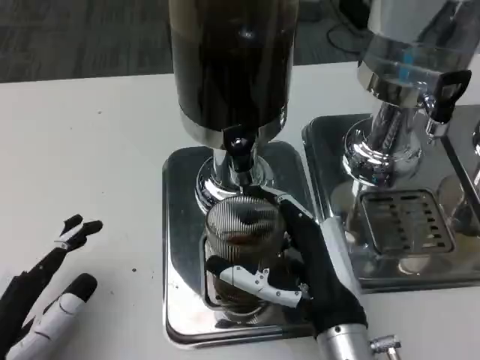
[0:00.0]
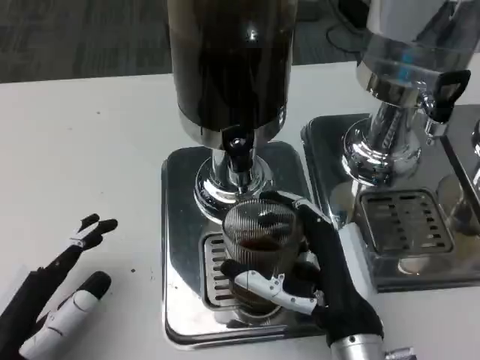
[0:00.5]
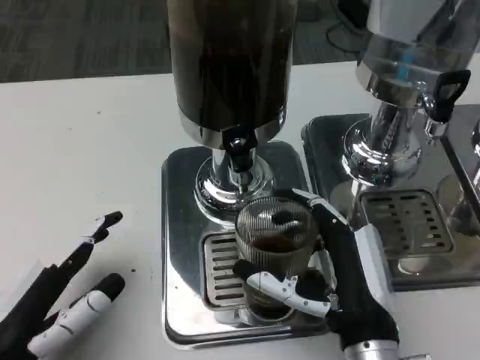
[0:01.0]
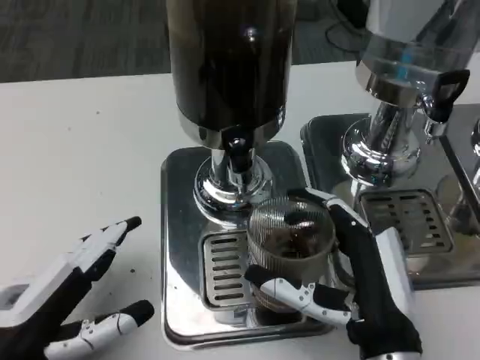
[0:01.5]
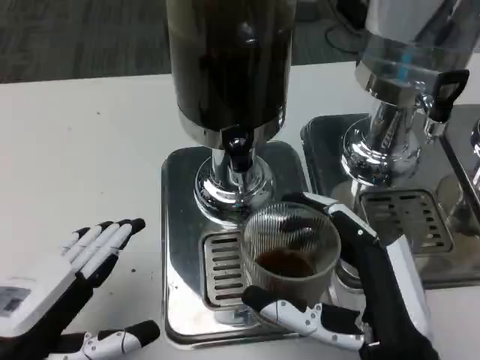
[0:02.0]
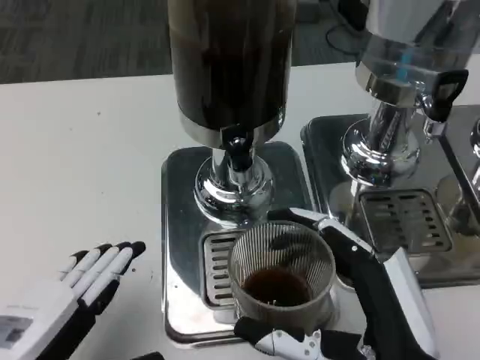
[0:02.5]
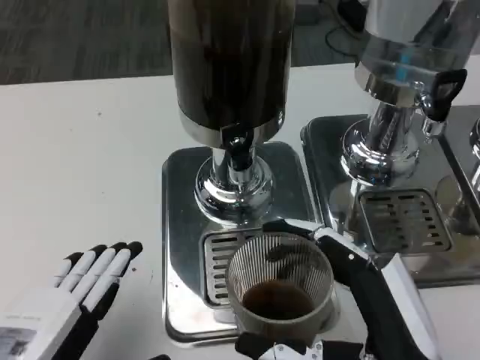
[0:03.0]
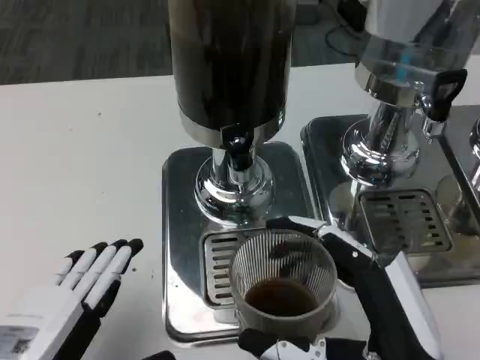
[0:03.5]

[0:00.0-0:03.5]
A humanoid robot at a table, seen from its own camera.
Task of the whole recording: Grasp the cup under the faucet to collect the drink, then remove the cup.
0:00.0 to 0:02.0: The right hand heads backward, covering about 5 cm.

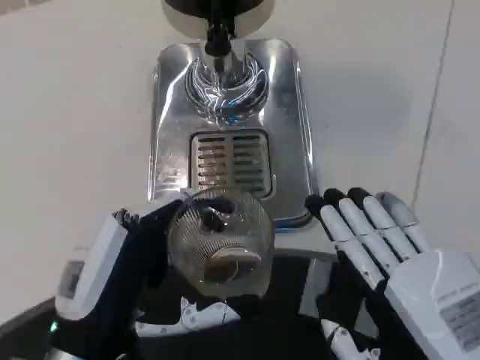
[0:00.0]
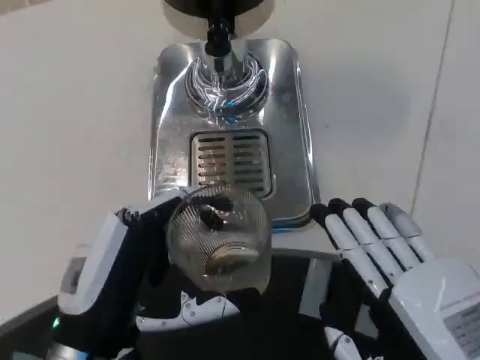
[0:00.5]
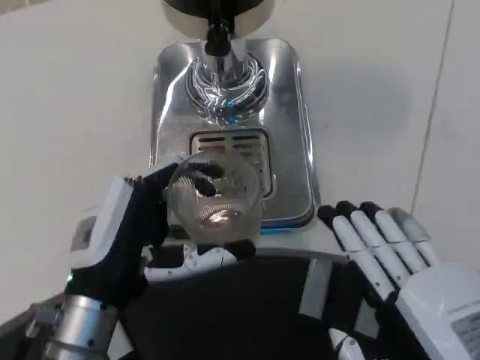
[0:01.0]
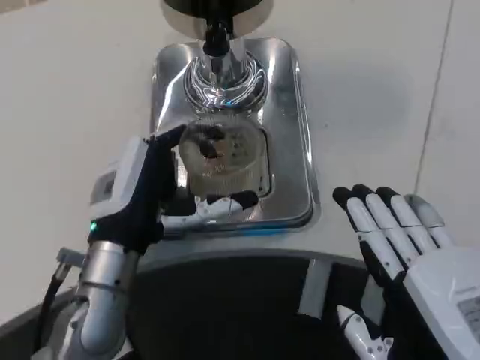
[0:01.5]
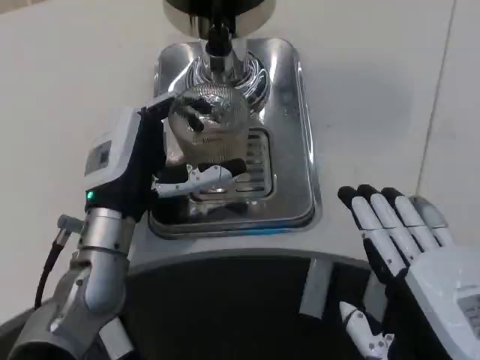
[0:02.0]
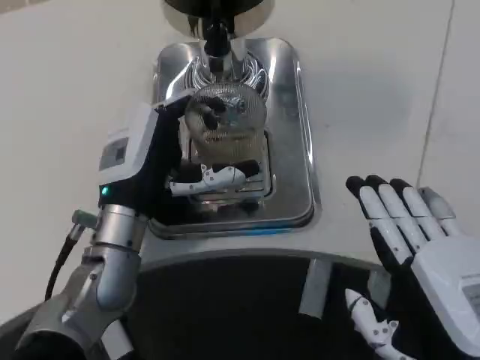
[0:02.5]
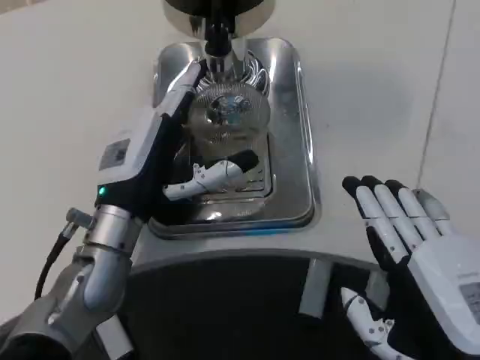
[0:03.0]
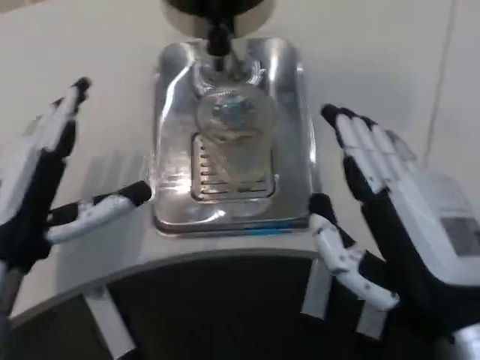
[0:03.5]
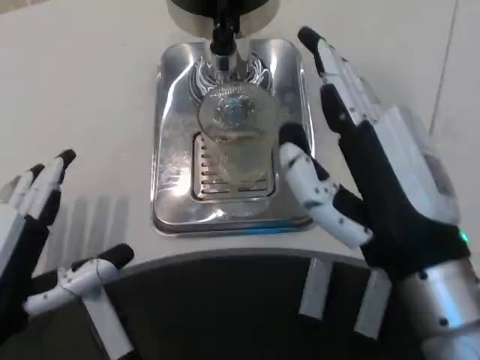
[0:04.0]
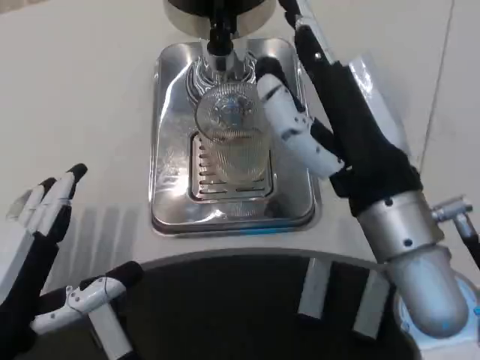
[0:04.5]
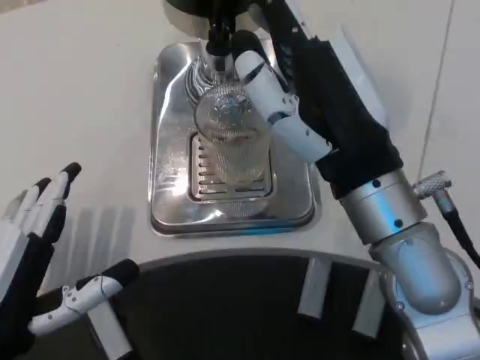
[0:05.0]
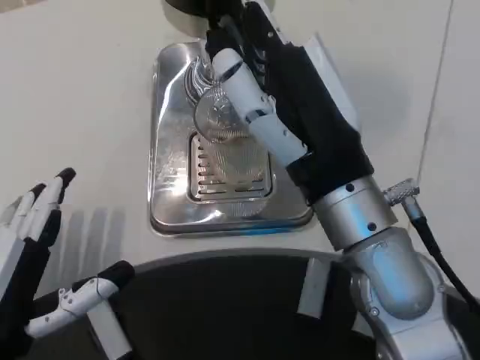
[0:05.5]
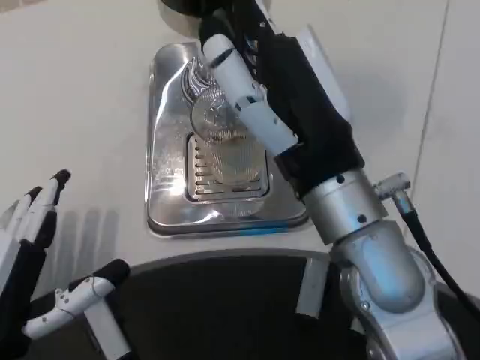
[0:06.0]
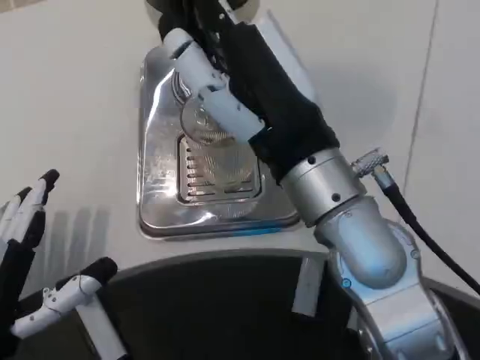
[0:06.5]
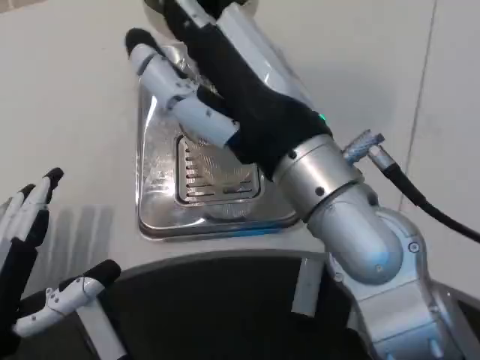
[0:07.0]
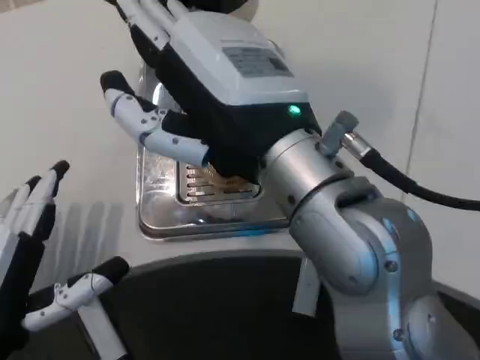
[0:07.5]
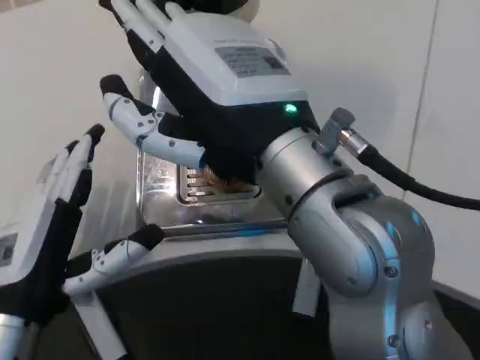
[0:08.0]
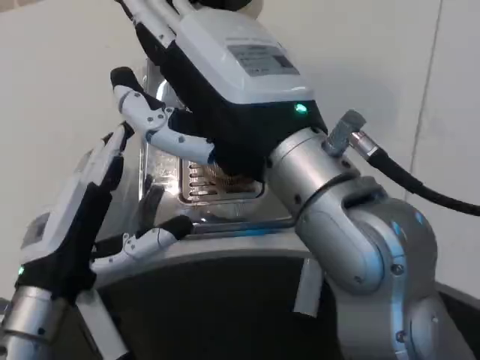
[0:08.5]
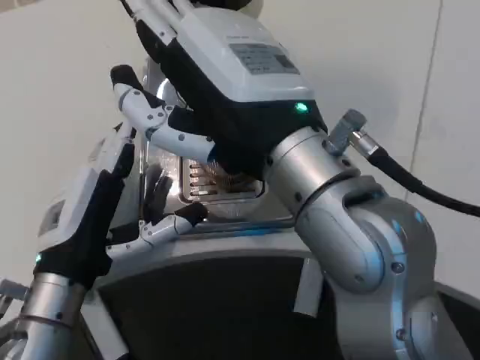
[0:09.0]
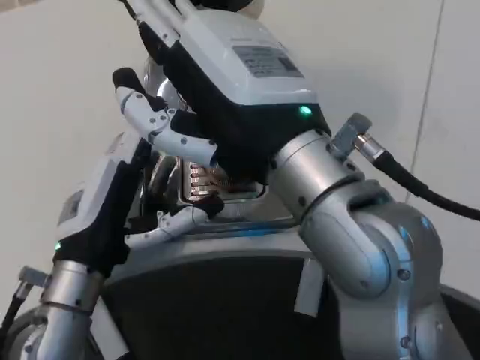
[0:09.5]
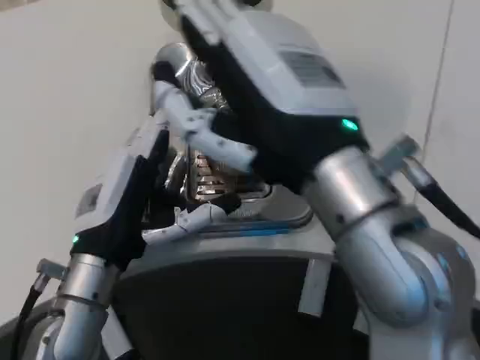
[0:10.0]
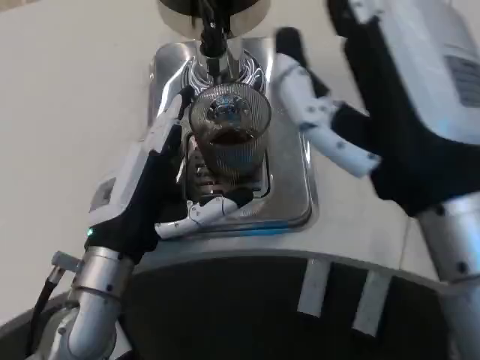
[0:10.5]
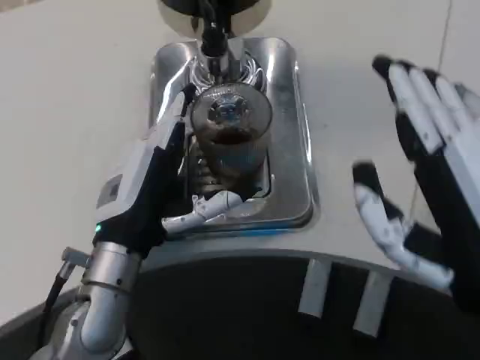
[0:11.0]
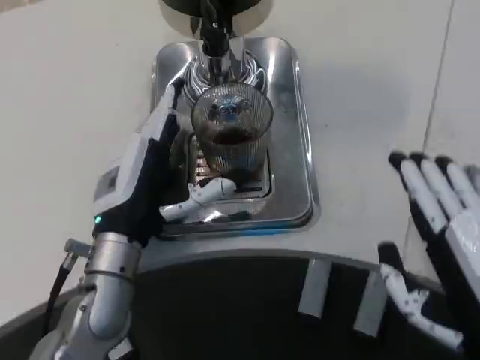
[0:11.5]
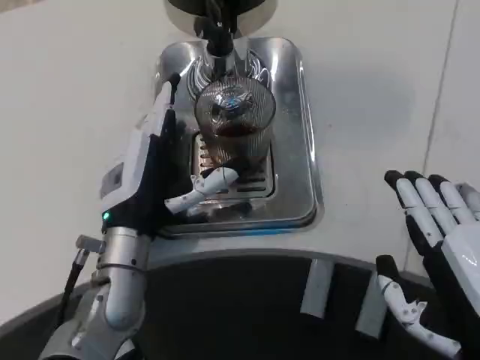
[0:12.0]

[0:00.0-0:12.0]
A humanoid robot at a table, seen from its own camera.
Task of the whole recording: Grasp the cup under the faucet to collect the drink, then remove the cup.
0:00.0 to 0:02.0: The left hand shifts about 15 cm forward.
0:02.0 to 0:04.0: The left hand shifts roughly 15 cm backward and to the left; the right hand heads forward, upward and to the left, covering approximately 10 cm.
0:04.0 to 0:06.0: The right hand heads forward and to the left, covering roughly 10 cm.
0:06.0 to 0:08.0: The right hand travels upward by about 5 cm.
0:08.0 to 0:10.0: The left hand travels forward by some 5 cm.
0:10.0 to 0:12.0: The right hand travels to the right, downward and backward by about 20 cm; the left hand changes place by about 5 cm.

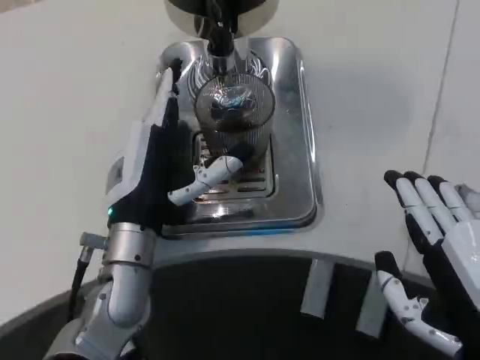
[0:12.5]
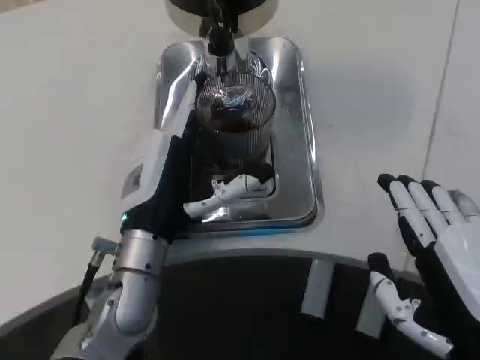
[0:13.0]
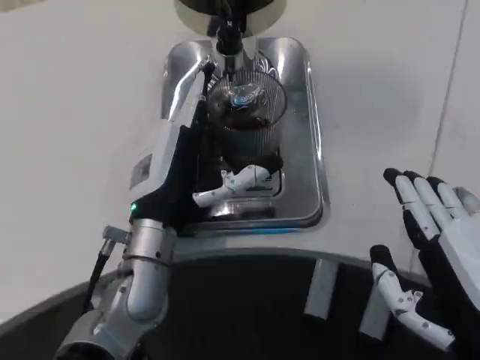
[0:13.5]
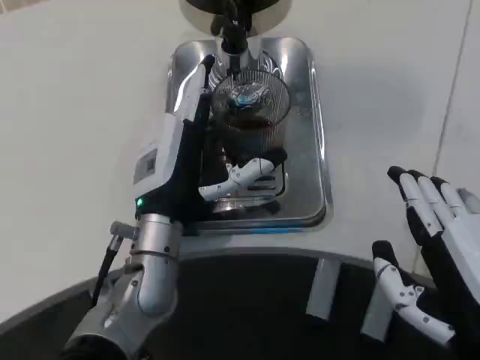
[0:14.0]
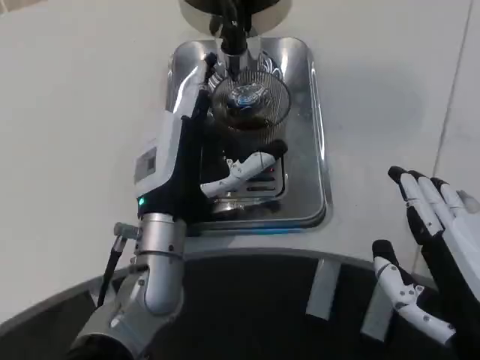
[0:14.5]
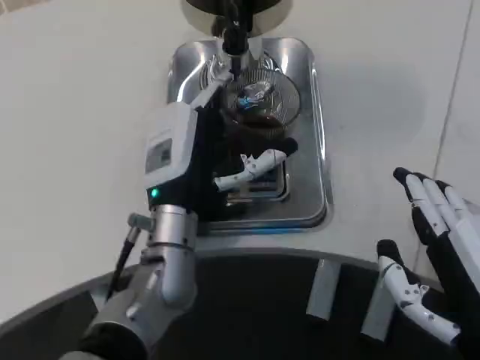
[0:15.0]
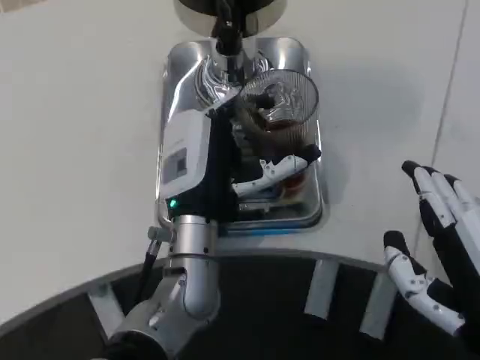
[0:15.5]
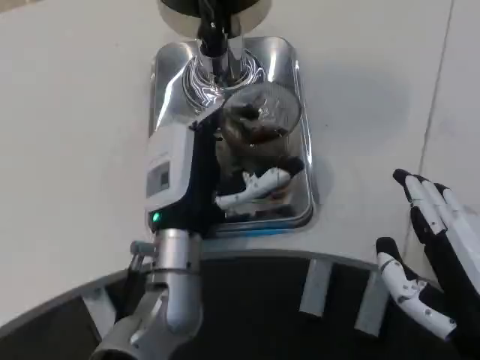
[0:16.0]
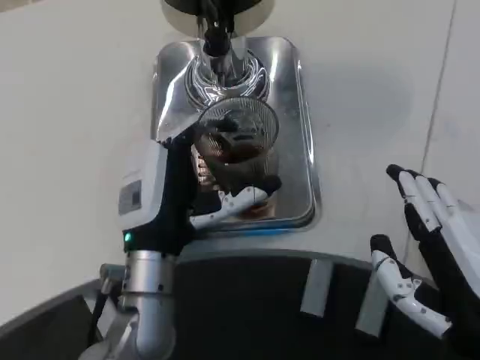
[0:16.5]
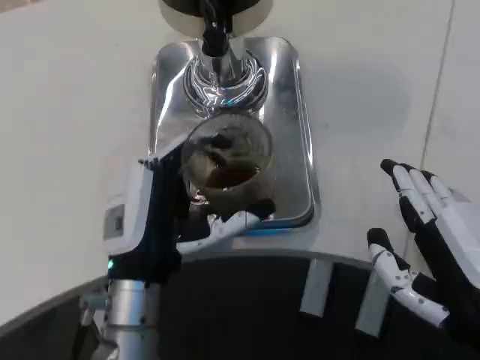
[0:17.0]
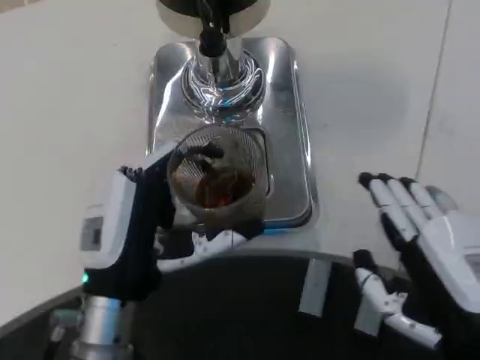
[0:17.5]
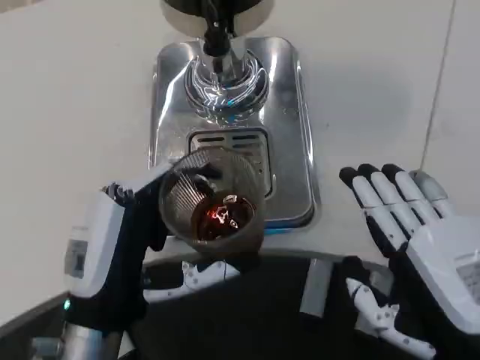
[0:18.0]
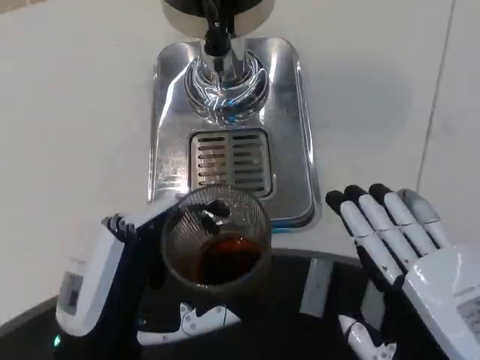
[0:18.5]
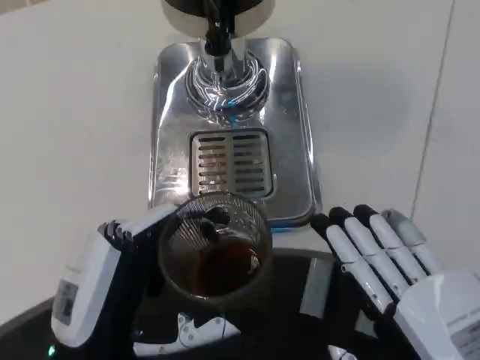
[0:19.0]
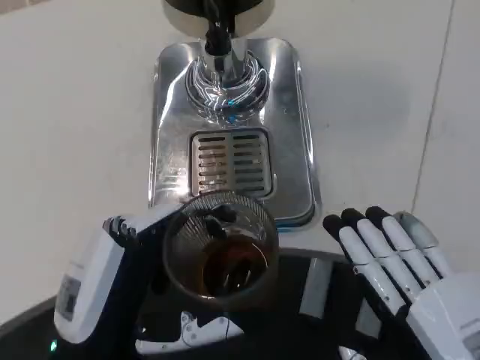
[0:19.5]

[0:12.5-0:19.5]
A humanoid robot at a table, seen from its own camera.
Task of the whole recording: Grasp the cup under the faucet to collect the drink, then remove the cup.
0:16.0 to 0:17.5: The left hand is displaced backward and to the left by some 10 cm.
0:17.5 to 0:19.5: The right hand changes place by roughly 5 cm. The left hand shifts some 5 cm backward.

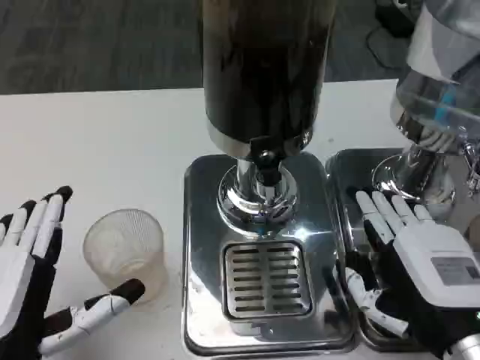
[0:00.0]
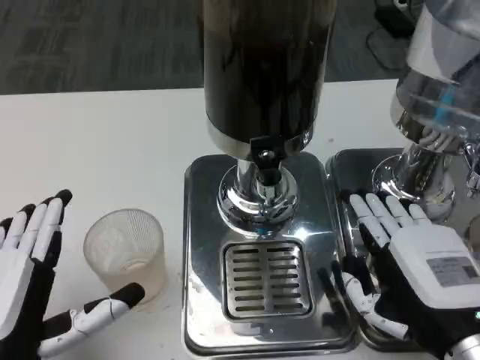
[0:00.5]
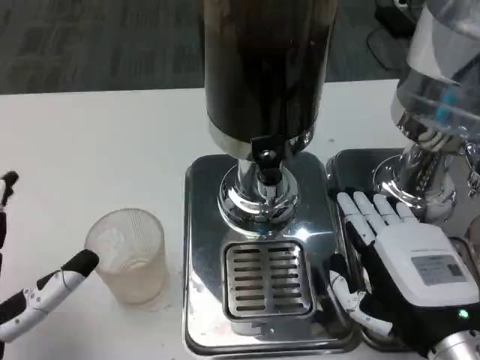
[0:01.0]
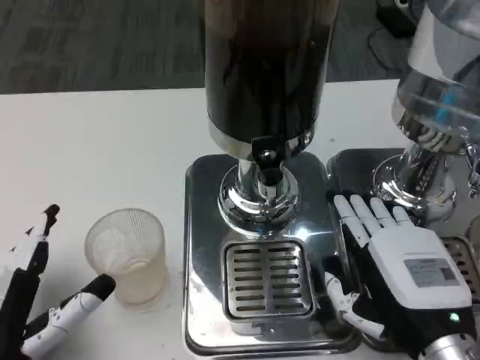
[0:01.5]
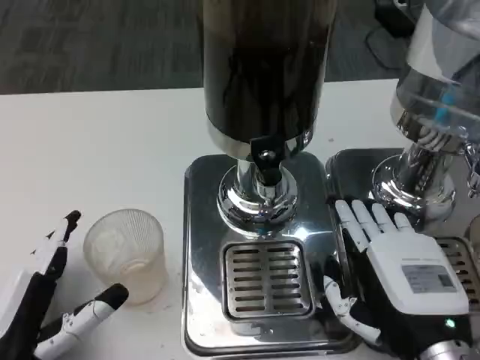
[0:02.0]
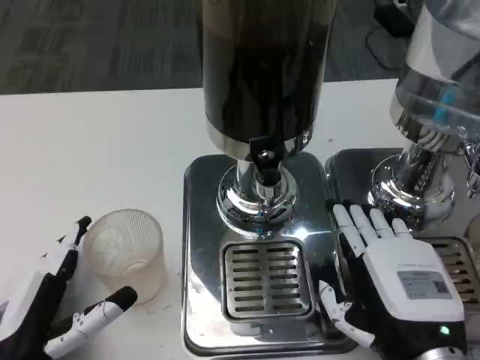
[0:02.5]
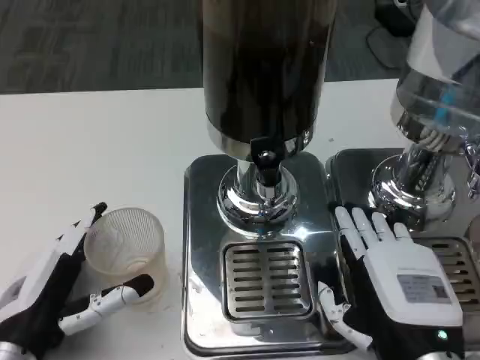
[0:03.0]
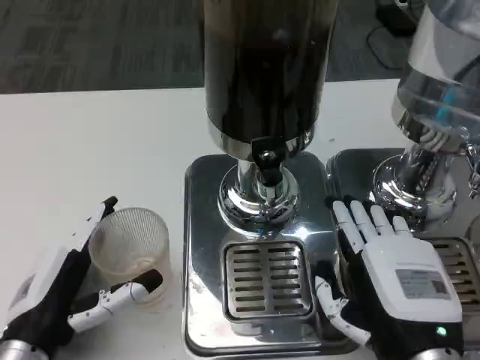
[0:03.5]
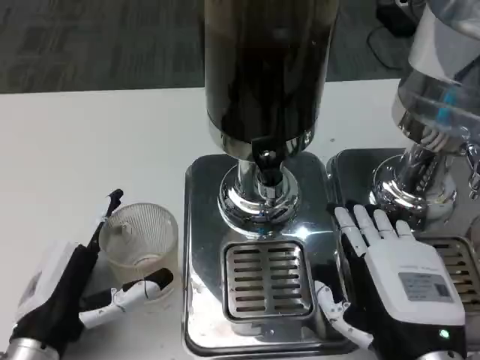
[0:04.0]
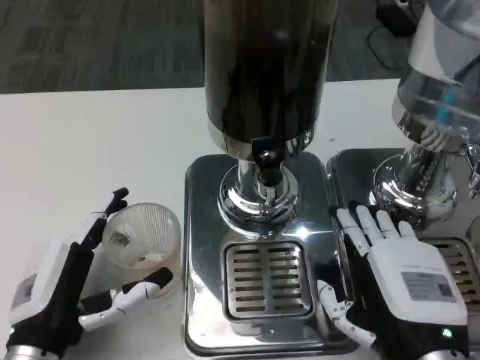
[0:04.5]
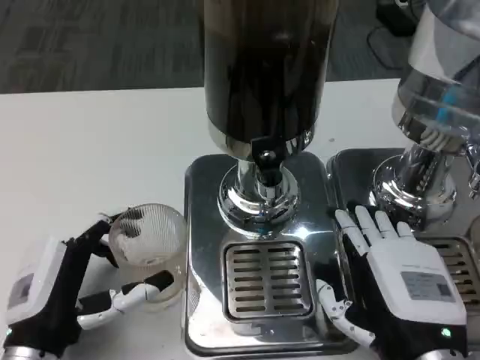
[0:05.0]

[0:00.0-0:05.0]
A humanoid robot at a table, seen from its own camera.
Task of the whole recording: Grasp the cup under the faucet to collect the drink, then remove the cup.
0:00.0 to 0:02.5: The left hand travels downward by approximately 5 cm.
0:02.5 to 0:05.0: There are only small adjustments of the hands.
